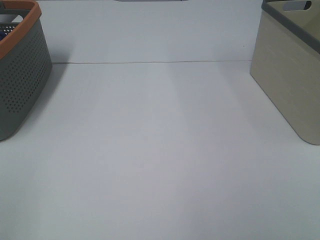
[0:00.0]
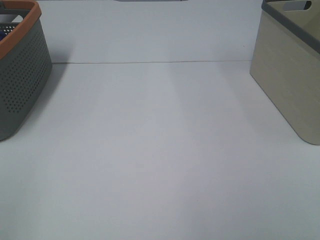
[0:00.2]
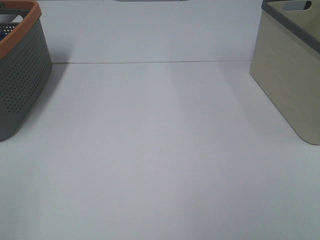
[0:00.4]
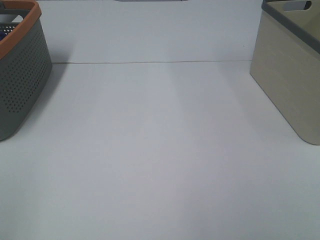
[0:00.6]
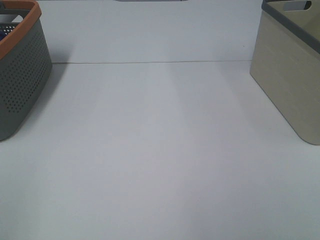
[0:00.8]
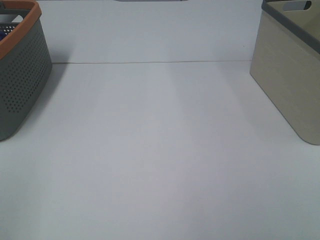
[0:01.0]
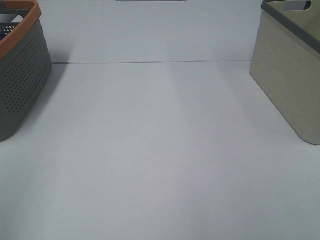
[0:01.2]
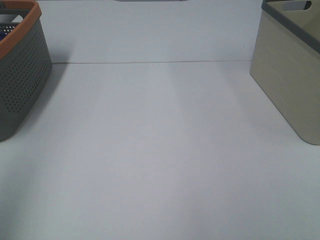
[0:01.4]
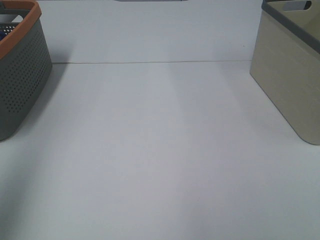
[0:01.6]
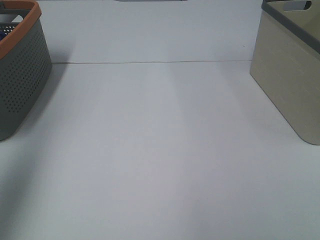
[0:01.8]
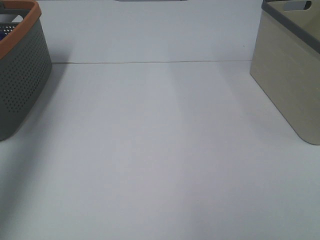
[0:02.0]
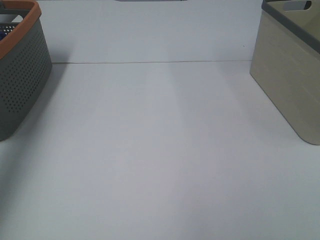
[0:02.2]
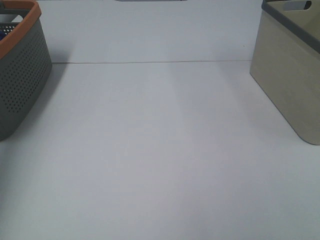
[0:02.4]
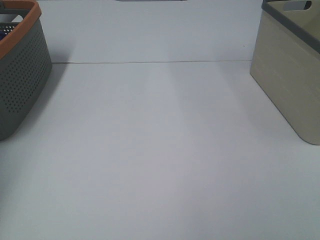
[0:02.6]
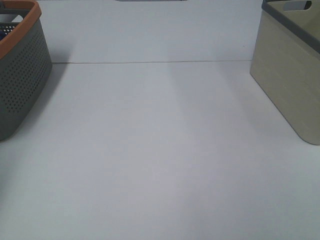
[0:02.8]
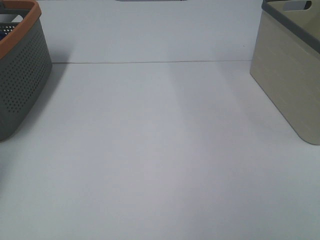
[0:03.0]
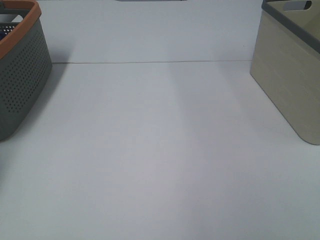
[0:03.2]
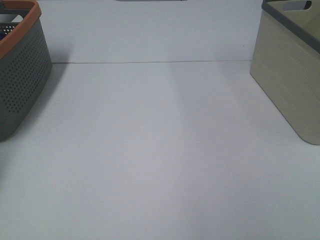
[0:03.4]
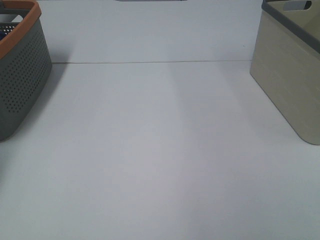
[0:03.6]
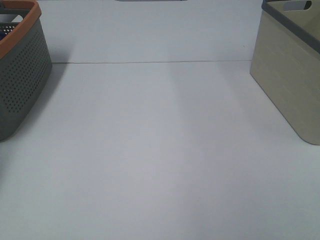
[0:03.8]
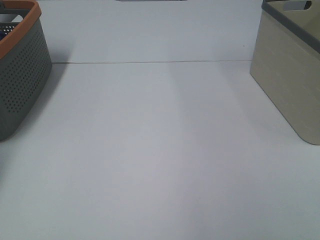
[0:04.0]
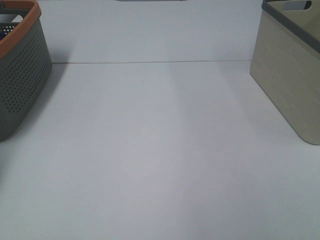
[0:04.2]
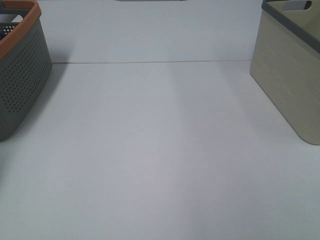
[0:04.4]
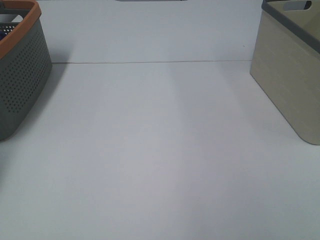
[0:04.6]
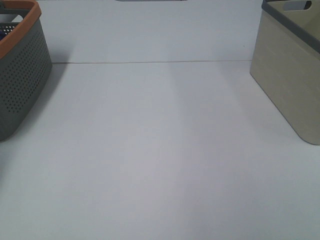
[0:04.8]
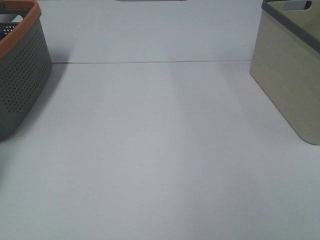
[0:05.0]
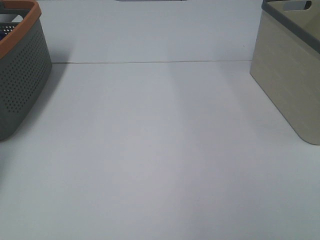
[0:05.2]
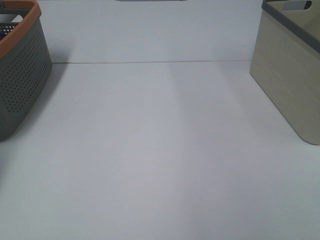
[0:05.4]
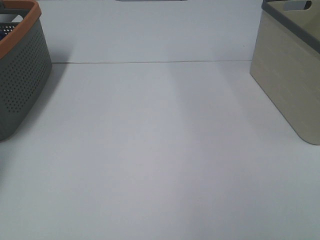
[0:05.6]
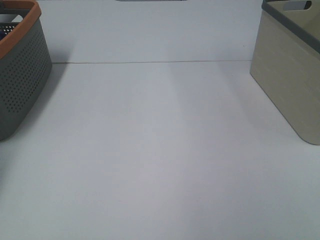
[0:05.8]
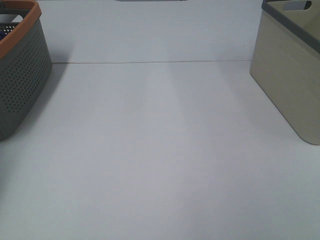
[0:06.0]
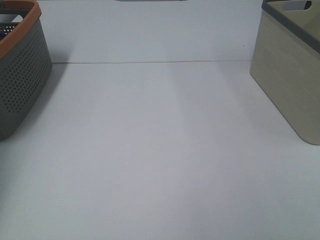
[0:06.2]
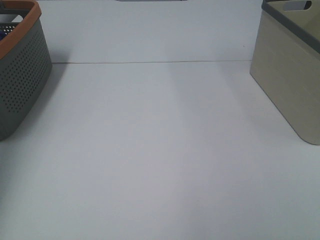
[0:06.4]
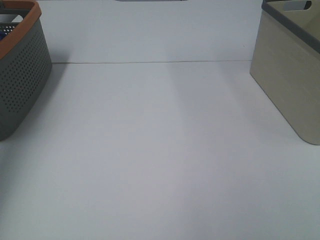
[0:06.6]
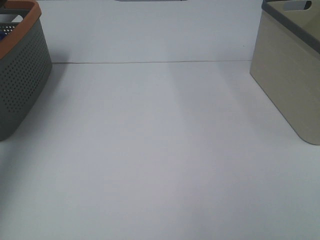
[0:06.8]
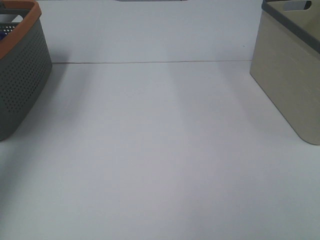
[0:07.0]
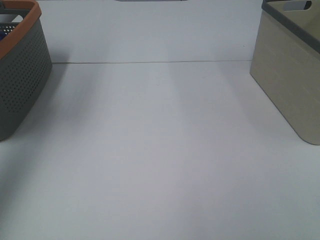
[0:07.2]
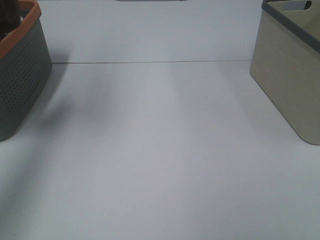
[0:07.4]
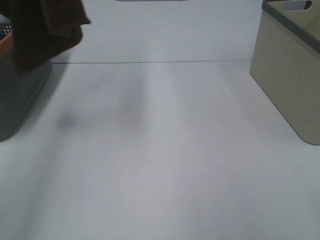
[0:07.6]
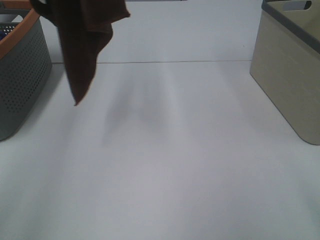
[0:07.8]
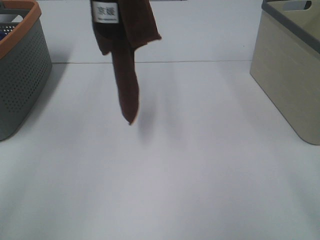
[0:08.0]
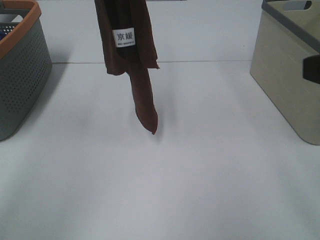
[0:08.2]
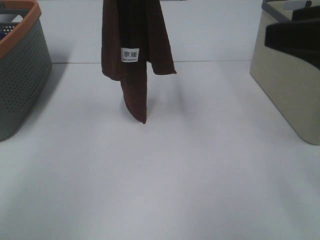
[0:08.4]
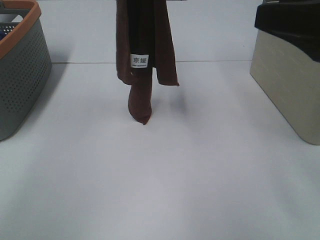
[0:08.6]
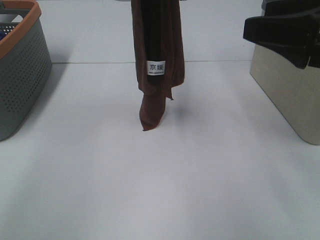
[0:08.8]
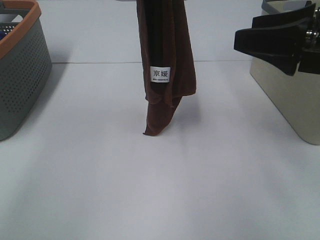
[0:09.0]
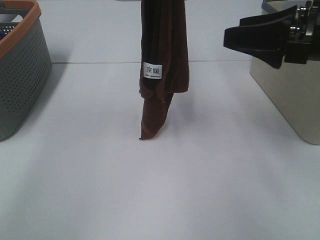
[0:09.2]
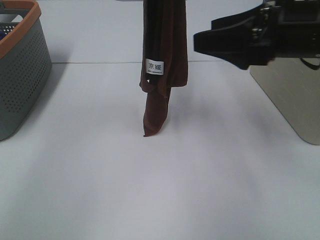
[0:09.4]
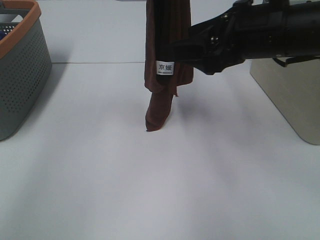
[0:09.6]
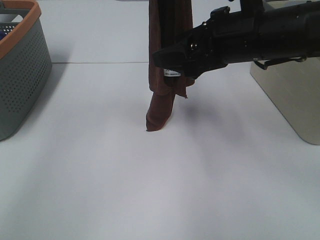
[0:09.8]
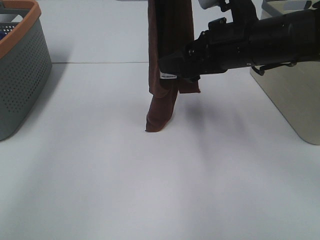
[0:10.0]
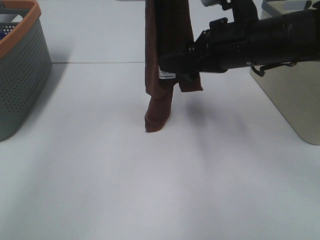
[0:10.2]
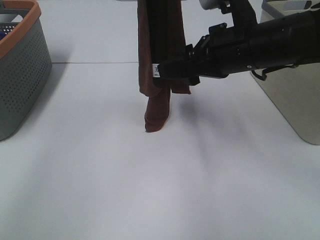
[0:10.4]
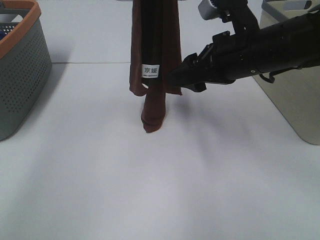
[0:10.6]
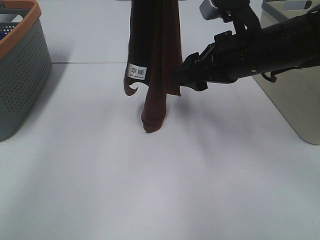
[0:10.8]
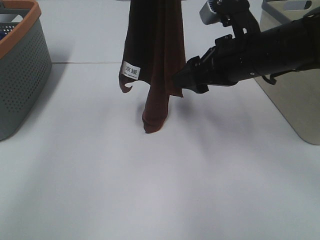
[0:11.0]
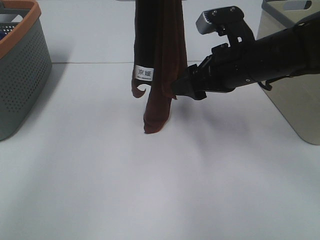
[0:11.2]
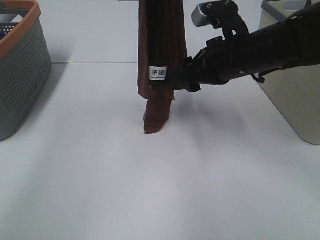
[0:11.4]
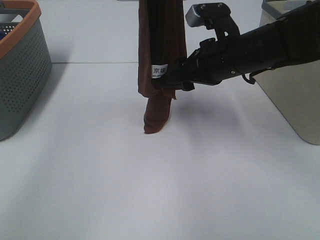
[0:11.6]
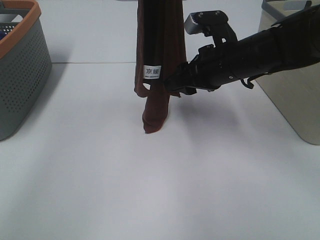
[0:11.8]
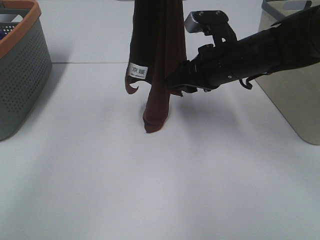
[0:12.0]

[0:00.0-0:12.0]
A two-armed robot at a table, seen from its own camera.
Task of the whole recording: Remove the towel and place it.
Step, 0:06.6 to 0:10.2: Right hand: grab a corner of the brown towel and straighten it.
0:00.0 to 0:01.6: The left gripper travels forward and upward by some 20 cm.
0:01.6 to 0:03.0: The left gripper is displaced forward and downward by approximately 40 cm.
0:06.0 to 0:07.6: The right gripper goes roughly 5 cm forward; the left gripper is displaced to the right, upward and backward by about 30 cm.
0:07.6 to 0:09.0: The right gripper travels forward by roughly 20 cm; the left gripper goes some 20 cm to the right and downward.
0:09.0 to 0:10.4: The right gripper shifts roughly 10 cm to the left and forward.
0:10.4 to 0:12.0: The right gripper changes place by about 5 cm, and closes.

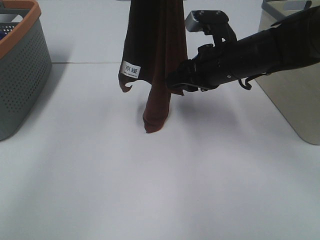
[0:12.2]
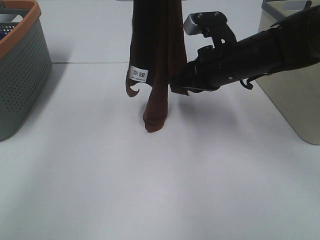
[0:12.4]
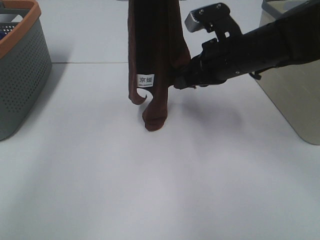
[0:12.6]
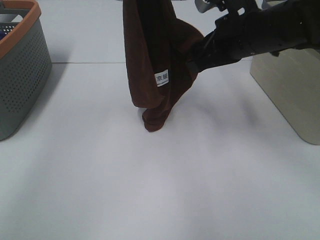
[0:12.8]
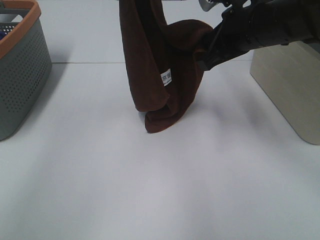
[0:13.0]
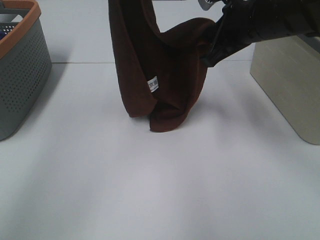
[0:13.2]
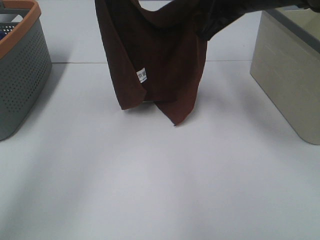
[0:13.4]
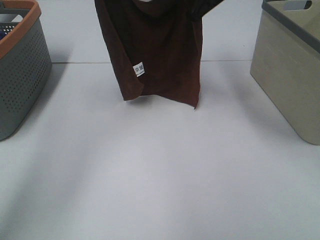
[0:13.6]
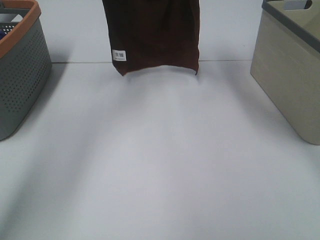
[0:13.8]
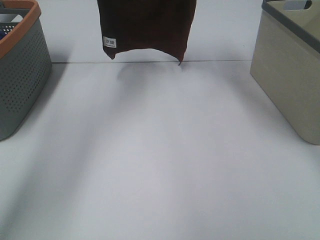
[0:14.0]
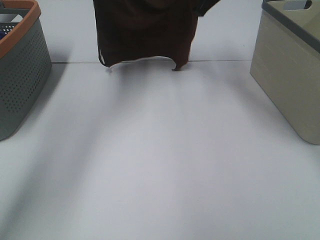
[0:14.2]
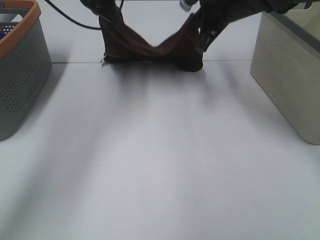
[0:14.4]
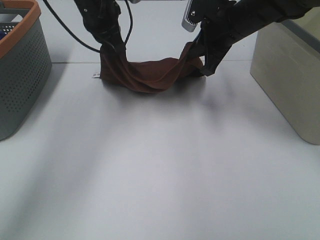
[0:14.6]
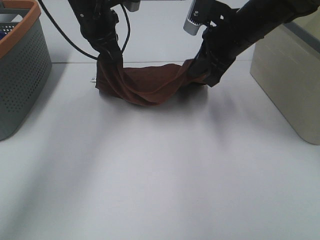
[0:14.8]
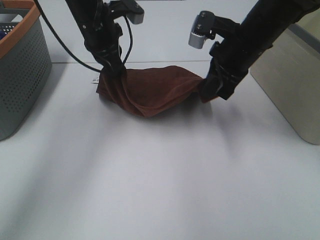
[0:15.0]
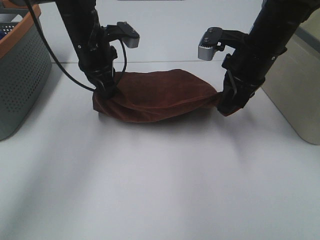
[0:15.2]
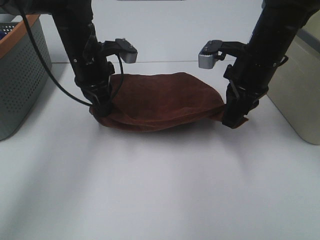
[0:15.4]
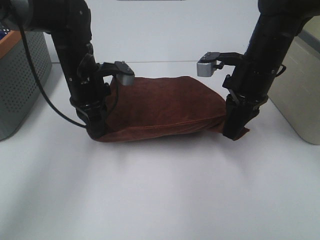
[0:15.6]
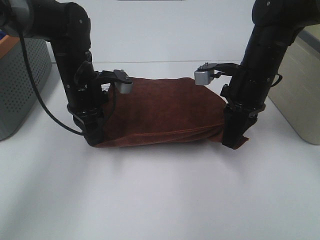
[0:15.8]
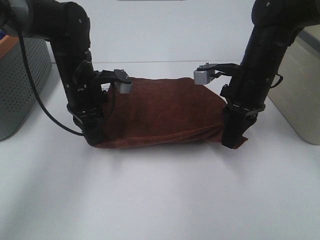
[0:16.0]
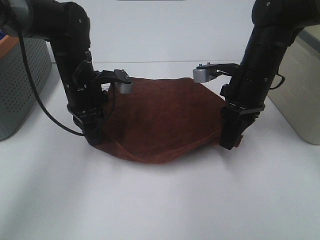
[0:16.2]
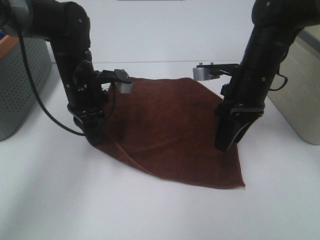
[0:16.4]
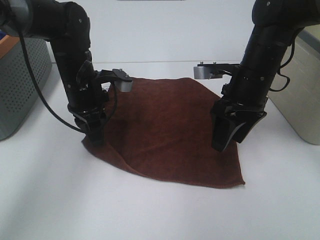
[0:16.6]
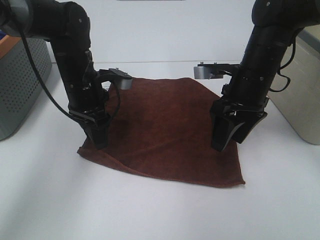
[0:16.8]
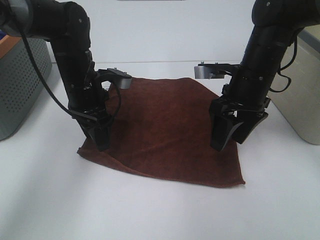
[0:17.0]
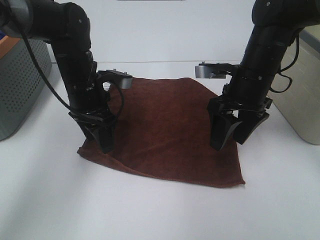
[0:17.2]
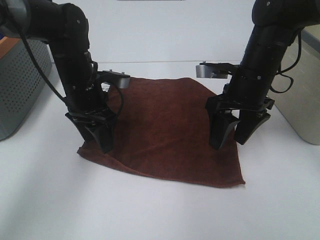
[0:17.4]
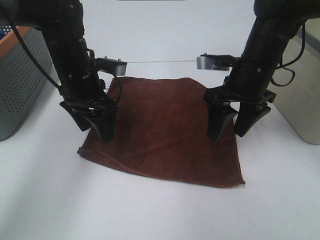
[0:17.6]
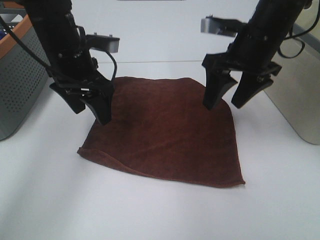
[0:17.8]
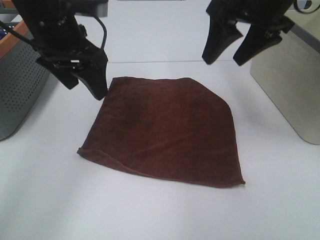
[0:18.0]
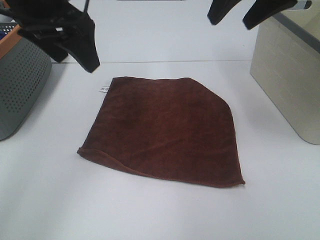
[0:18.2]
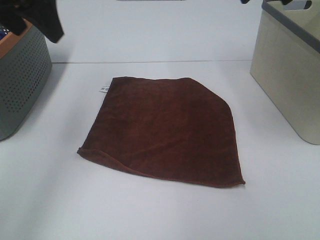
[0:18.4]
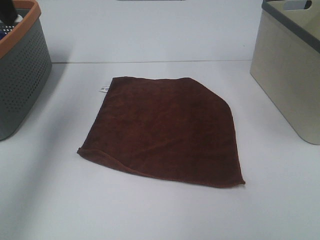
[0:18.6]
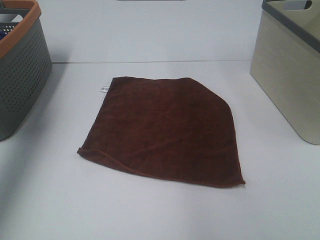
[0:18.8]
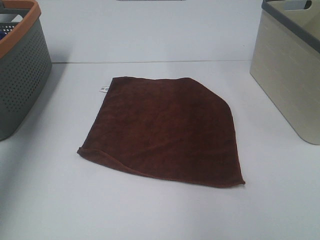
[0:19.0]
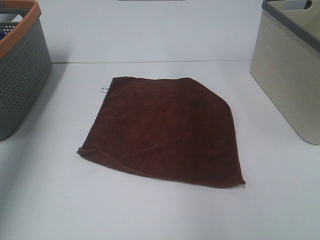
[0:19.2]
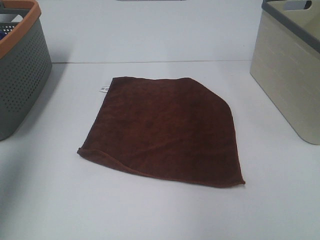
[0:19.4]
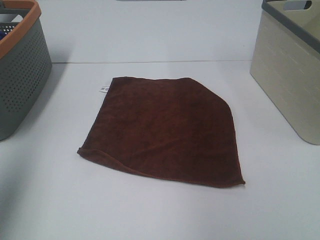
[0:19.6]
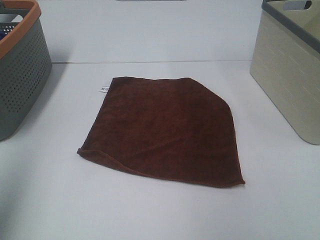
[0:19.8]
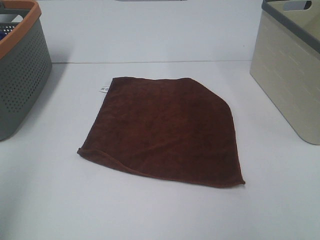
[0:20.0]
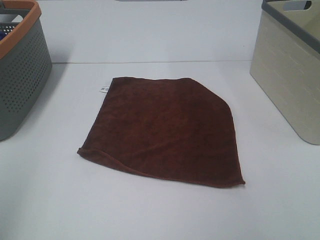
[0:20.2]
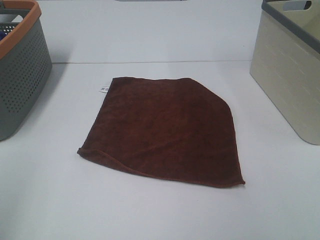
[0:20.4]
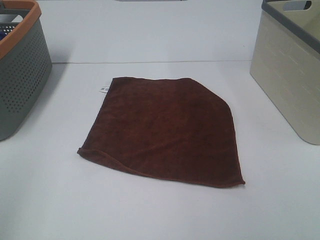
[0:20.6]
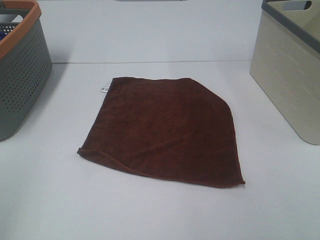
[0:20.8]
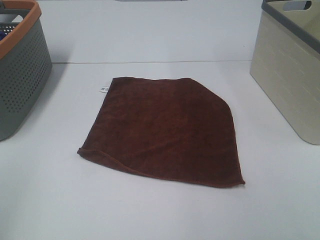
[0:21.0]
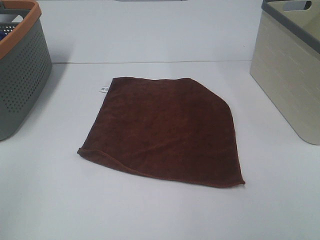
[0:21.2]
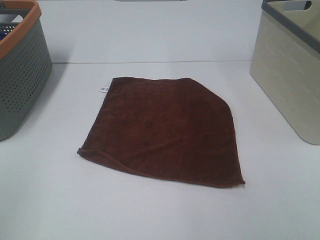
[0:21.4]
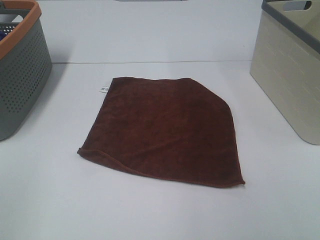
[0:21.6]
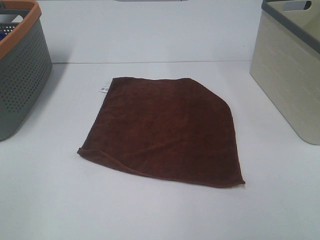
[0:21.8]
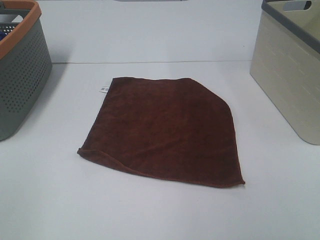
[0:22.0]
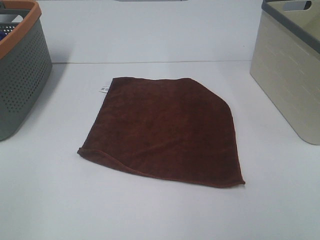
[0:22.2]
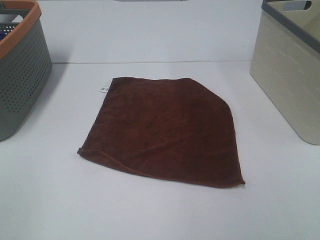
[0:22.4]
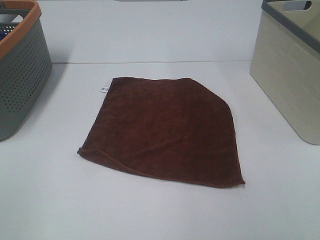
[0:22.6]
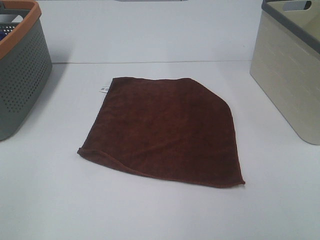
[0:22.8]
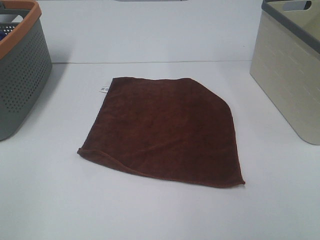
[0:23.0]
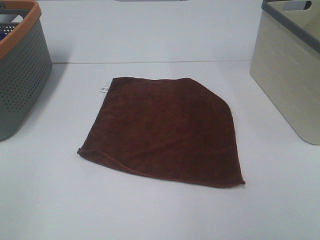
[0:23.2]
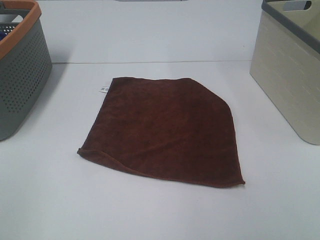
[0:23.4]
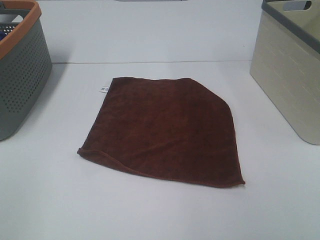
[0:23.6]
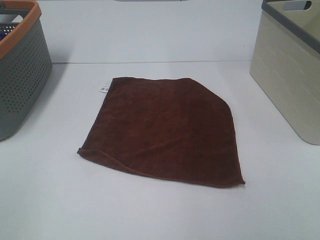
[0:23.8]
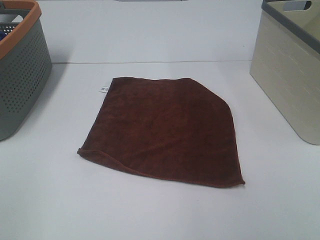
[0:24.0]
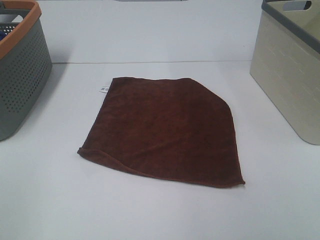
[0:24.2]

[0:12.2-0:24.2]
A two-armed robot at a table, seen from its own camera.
Task of the whole recording: Remove the towel and place it.
0:12.2 to 0:13.8: The left gripper goes about 15 cm forward, to the left and downward; the right gripper travels upward and forward by approximately 20 cm, and closes.
0:13.8 to 0:15.2: The right gripper heads downward and backward, covering some 15 cm; the left gripper shifts about 20 cm downward.
0:15.2 to 0:16.6: The right gripper opens its fingers, while the left gripper heads downward and backward, covering about 5 cm.
0:16.6 to 0:18.2: Both grippers travel together upward, roughly 20 cm. The left gripper opens.
0:18.2 to 0:19.8: The right gripper goes about 25 cm backward and to the right; the left gripper moves backward and to the left, roughly 25 cm.
0:19.8 to 0:21.2: The left gripper is displaced backward and downward by roughly 10 cm.
0:22.6 to 0:24.2: The two grippers keep their place.
